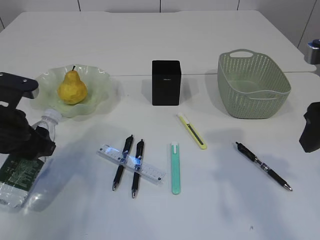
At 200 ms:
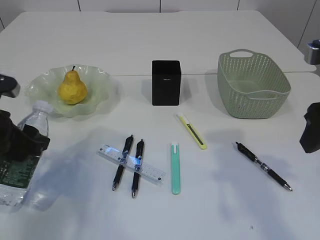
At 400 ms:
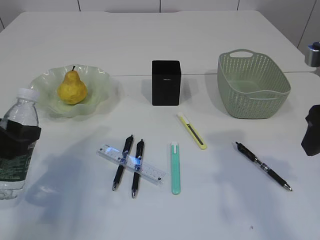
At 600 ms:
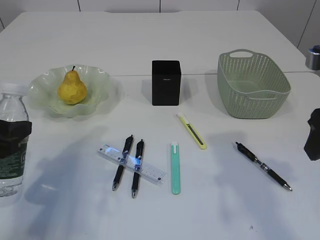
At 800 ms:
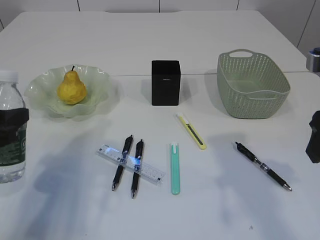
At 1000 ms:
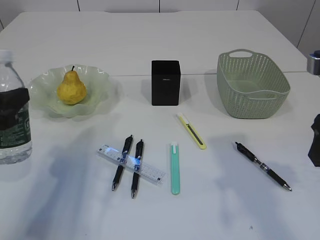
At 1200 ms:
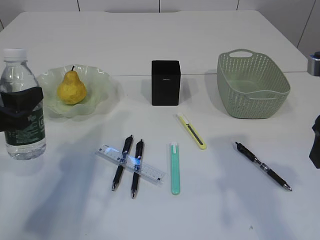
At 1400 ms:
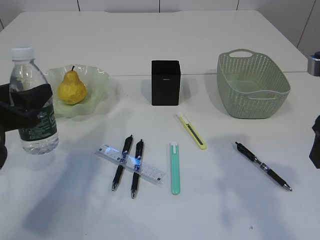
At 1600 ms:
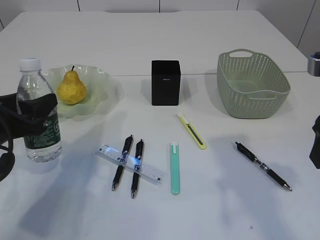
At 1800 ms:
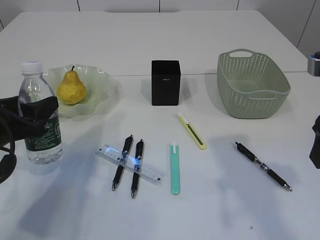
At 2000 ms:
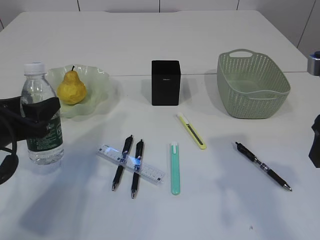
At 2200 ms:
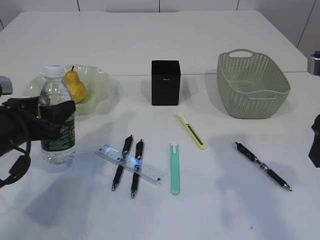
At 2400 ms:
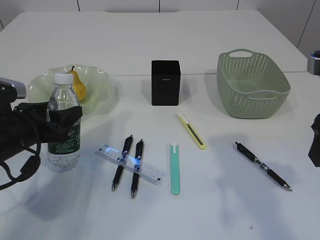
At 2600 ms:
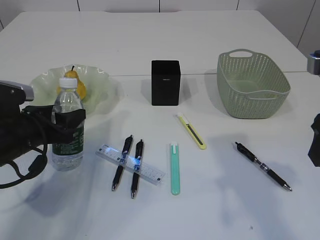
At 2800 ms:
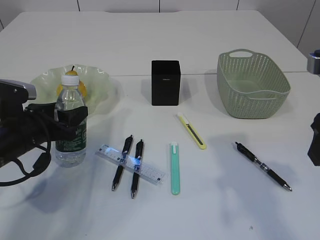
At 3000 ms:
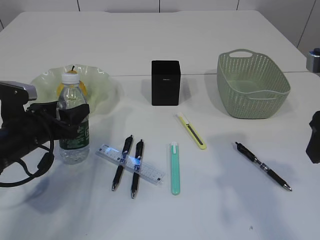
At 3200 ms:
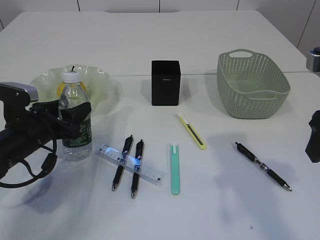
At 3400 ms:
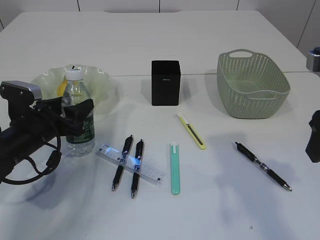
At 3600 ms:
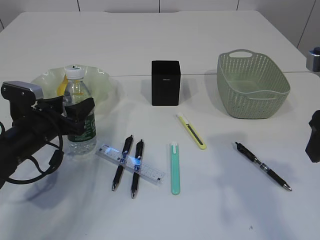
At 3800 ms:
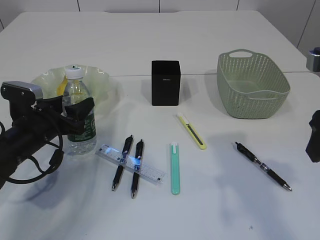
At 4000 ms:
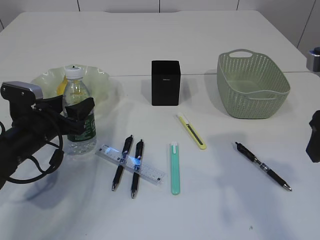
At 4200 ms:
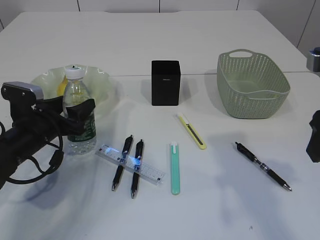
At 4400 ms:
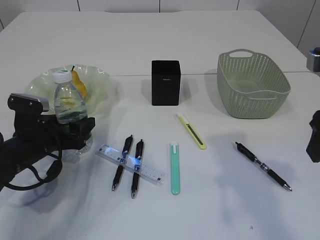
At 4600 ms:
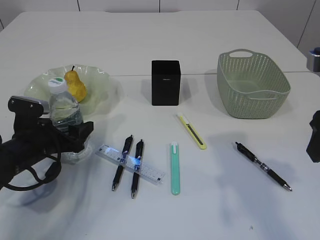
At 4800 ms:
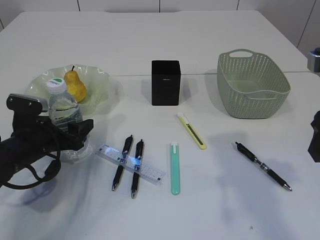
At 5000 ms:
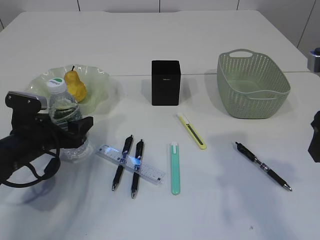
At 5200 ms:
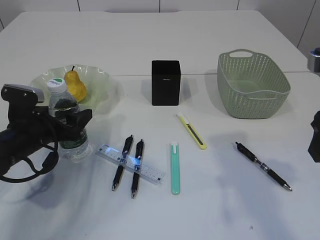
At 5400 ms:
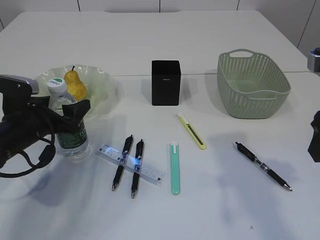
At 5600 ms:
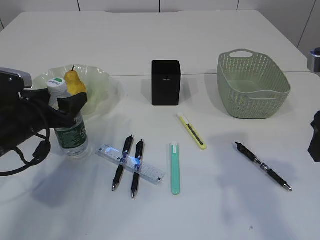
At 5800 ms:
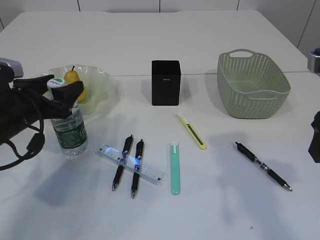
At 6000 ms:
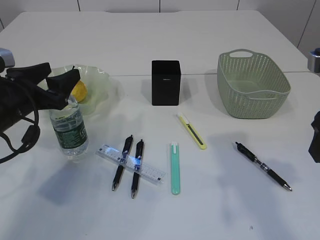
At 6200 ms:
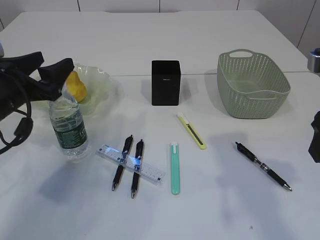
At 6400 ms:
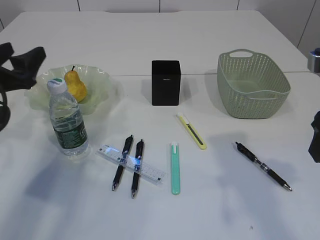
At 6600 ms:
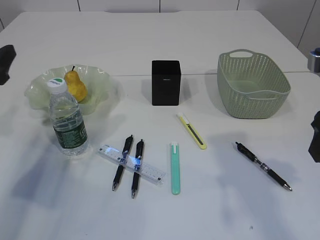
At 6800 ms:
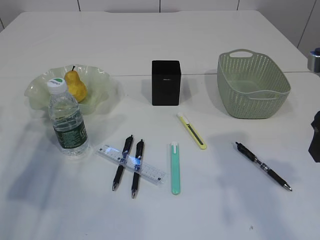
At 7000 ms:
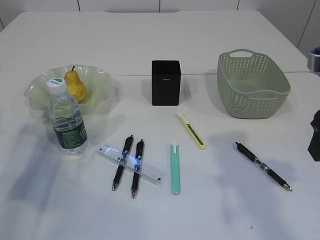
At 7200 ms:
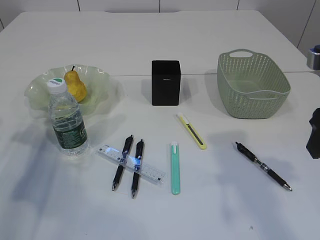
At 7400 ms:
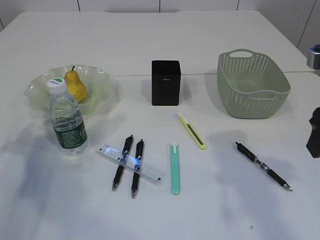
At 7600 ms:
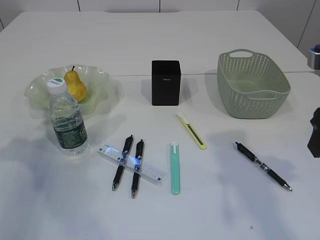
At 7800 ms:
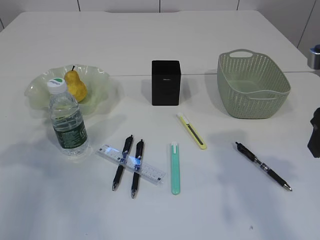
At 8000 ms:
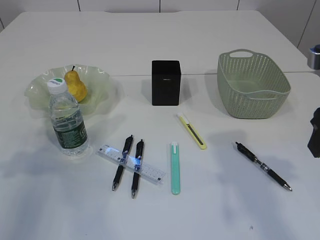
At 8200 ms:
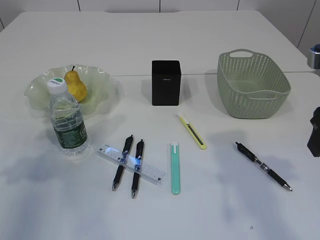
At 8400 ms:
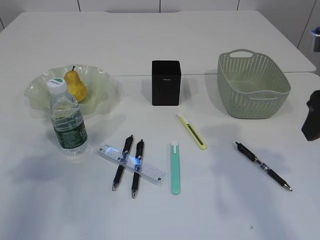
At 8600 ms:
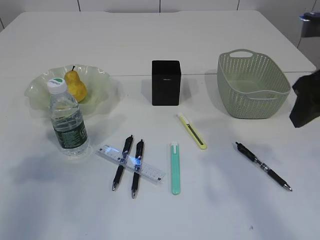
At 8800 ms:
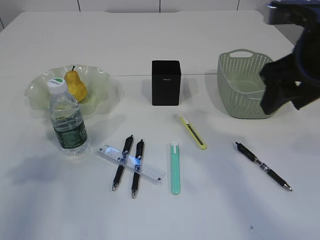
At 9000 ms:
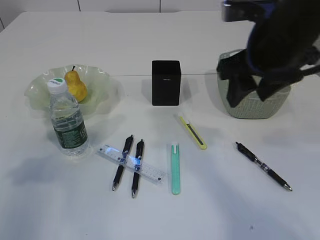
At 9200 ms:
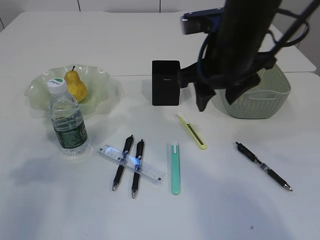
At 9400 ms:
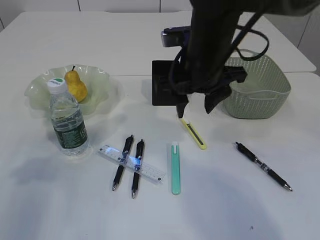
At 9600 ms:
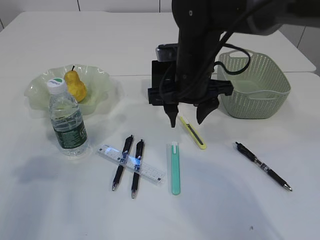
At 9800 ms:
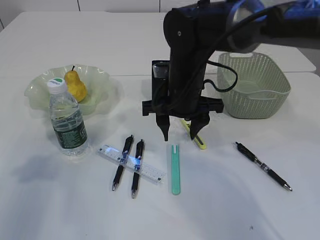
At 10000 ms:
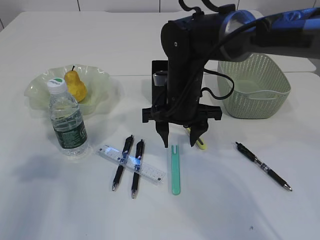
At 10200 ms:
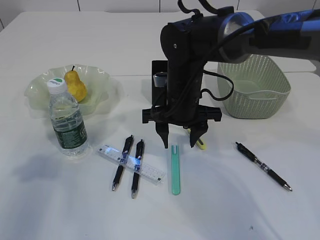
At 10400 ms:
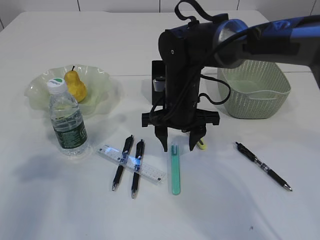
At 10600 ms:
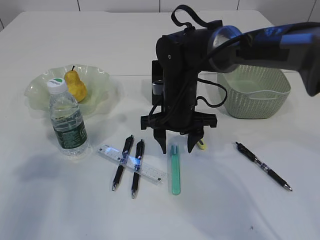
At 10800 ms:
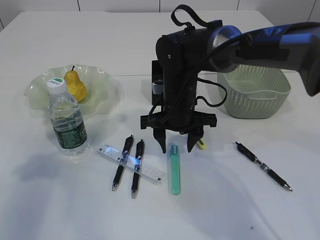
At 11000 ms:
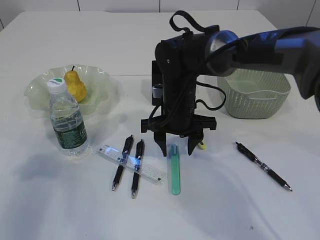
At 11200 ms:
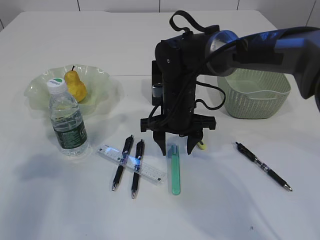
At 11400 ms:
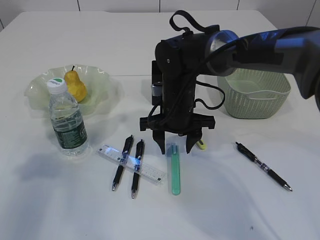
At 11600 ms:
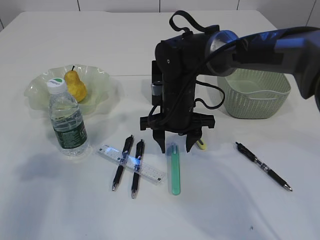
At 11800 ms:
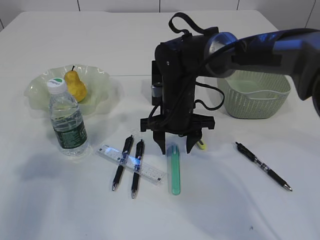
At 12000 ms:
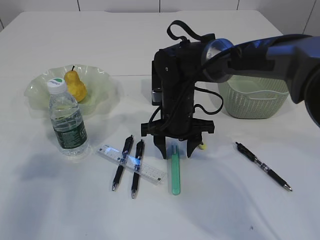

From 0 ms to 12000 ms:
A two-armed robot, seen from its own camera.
Step, from 600 ms to 6400 ms: Place the bottle.
From 1600 ms to 3000 ms: The left gripper moves downward and forward, approximately 10 cm.
From 3000 ms to 4400 ms: The left gripper opens its fingers.
From 4400 ms to 6000 ms: The left gripper heads upward, covering roughly 10 cm.
From 6000 ms to 7600 ms: The left gripper is displaced to the left by some 10 cm.
From 7600 ms to 9000 ms: The right gripper shifts roughly 10 cm to the left and forward.
From 9000 ms to 10400 ms: The right gripper is displaced downward, to the left and forward by roughly 20 cm.
From 10400 ms to 12000 ms: The grippers move only a little.

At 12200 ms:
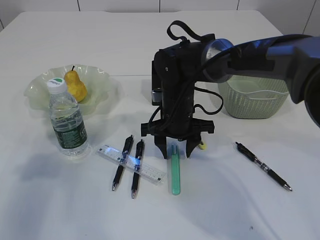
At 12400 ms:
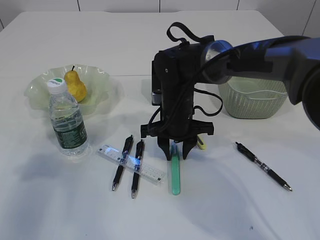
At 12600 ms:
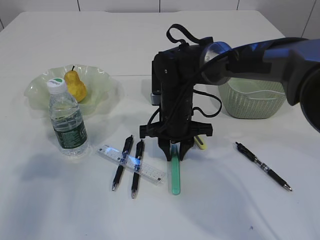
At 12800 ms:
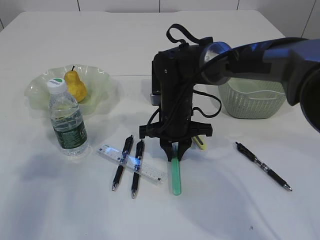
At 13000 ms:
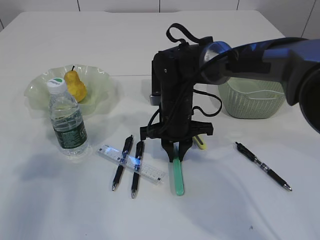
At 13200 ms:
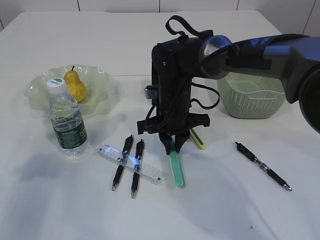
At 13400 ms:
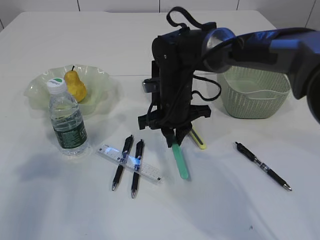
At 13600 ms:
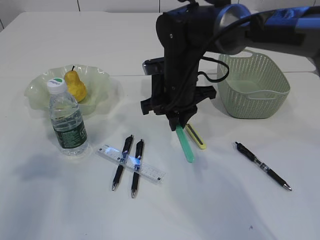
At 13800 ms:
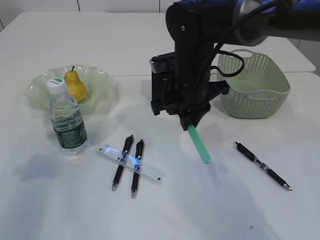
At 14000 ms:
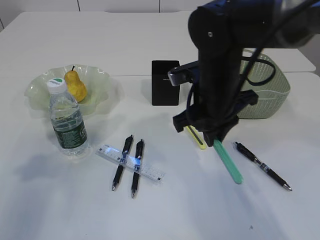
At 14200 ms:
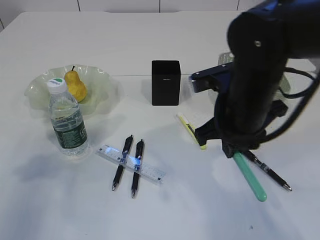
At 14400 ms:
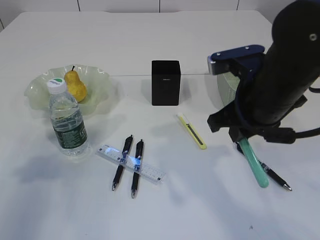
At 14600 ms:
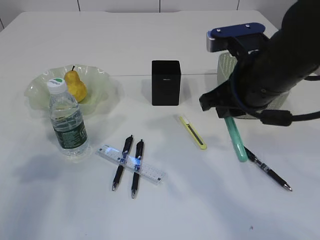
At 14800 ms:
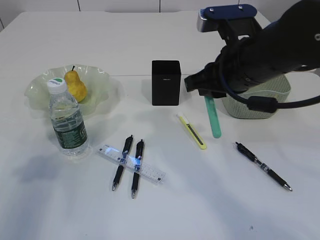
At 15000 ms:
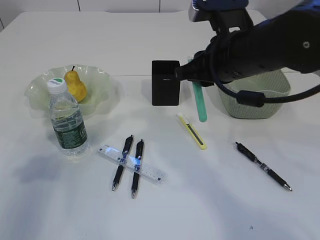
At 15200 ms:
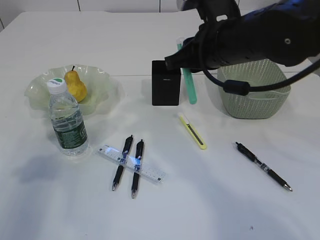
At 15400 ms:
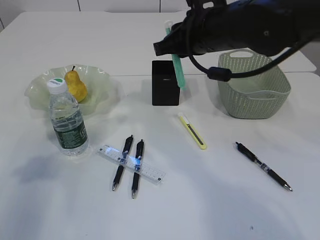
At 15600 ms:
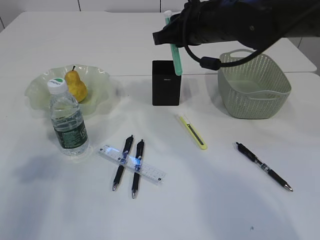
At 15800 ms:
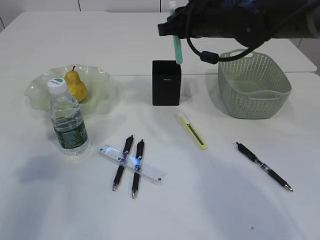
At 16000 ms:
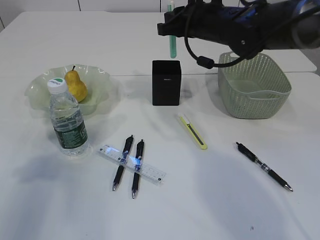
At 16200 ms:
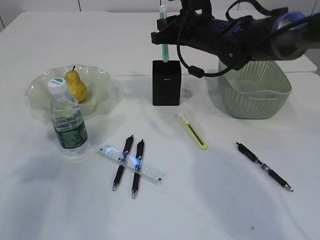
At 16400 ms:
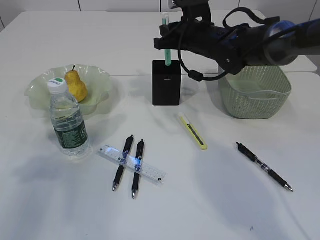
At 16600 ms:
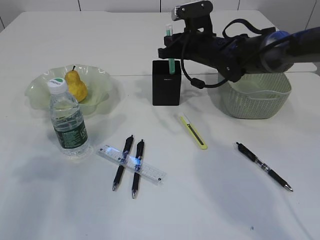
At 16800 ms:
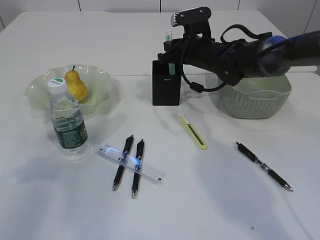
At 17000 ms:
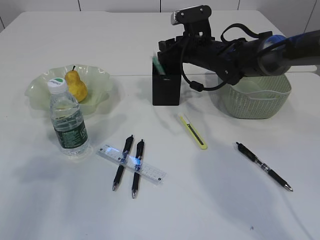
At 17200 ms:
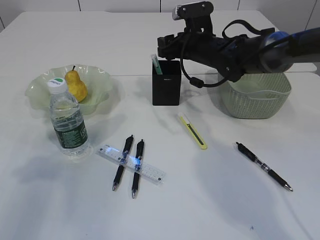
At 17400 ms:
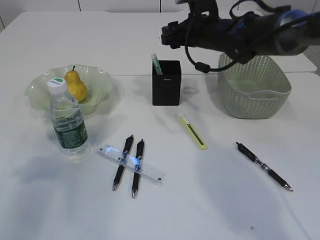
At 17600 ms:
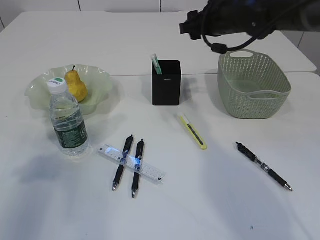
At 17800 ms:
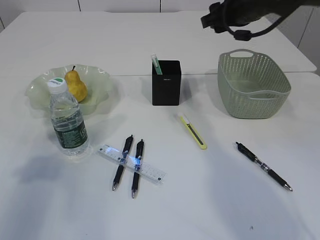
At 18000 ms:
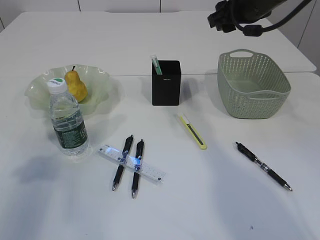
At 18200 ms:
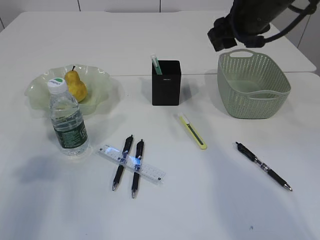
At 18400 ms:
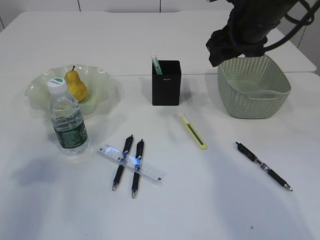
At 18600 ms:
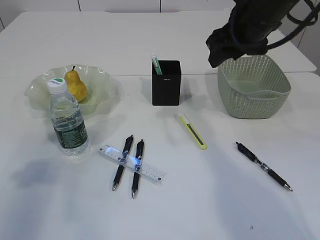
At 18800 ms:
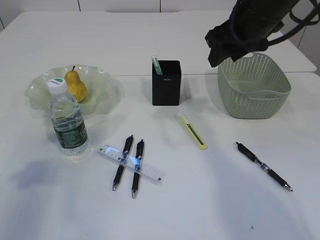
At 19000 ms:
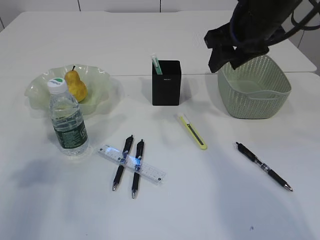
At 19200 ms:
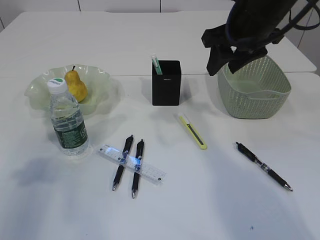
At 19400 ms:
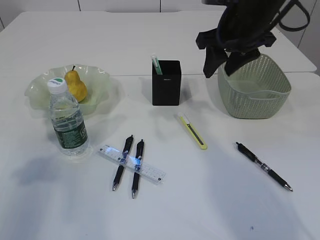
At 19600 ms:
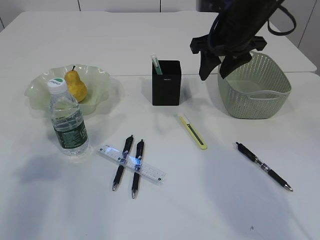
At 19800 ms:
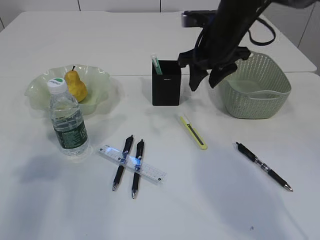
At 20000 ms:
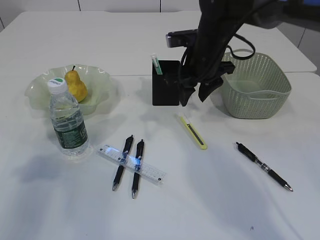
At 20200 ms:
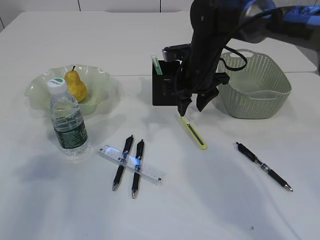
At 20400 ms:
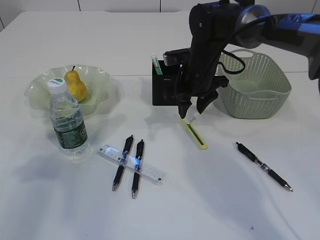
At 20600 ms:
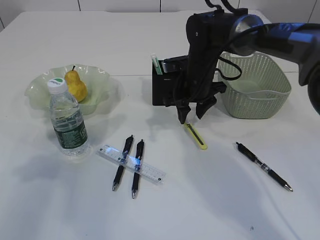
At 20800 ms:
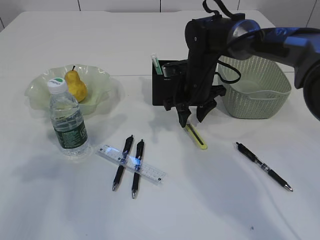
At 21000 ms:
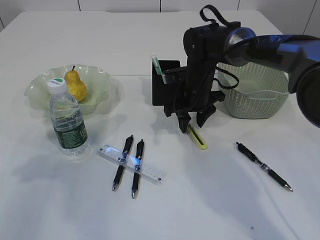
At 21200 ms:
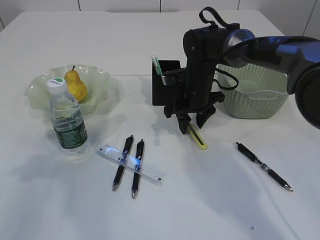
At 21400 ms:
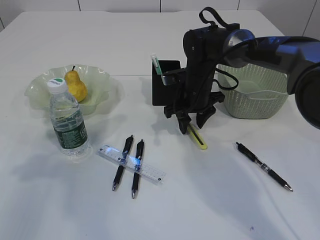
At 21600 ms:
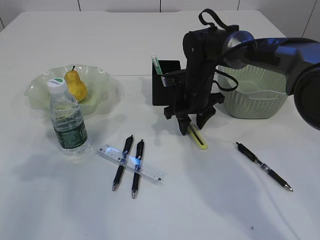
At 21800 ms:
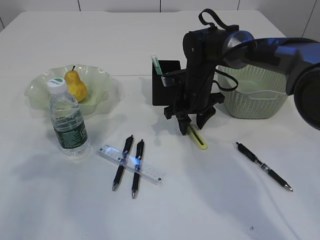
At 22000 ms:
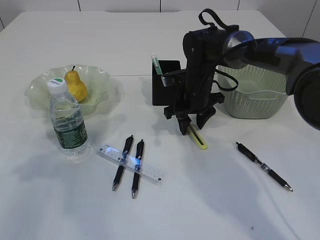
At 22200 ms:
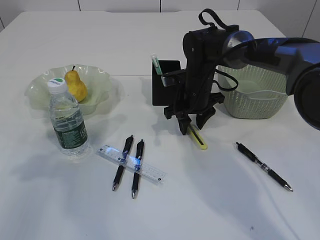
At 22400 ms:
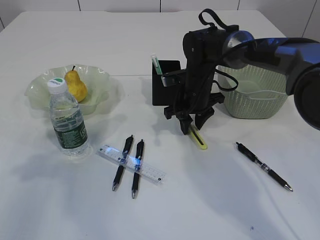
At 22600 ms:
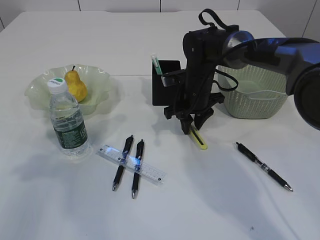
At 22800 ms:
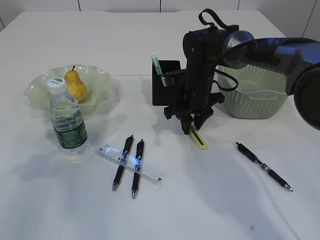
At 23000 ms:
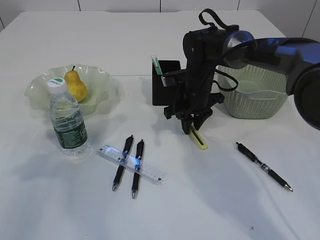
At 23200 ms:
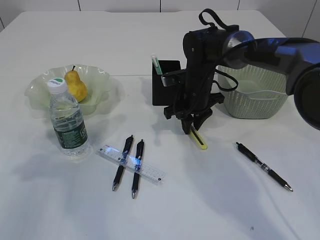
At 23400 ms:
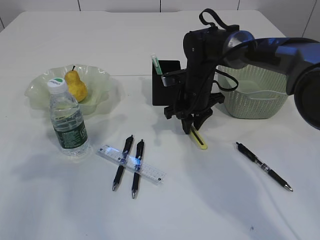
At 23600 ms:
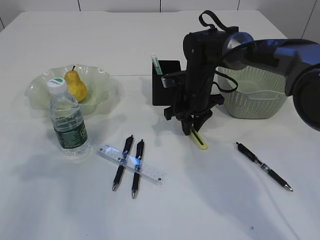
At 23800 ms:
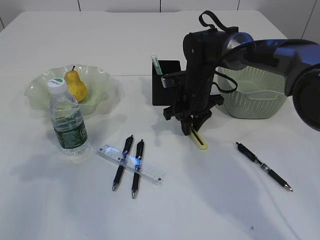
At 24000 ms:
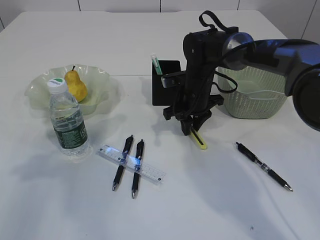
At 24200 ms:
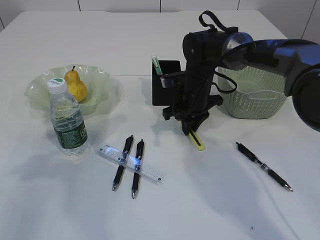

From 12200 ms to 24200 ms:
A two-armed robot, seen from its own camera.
Step, from 13600 ms to 17600 ms: Place the blue knife into the pen holder.
From 12200 ms to 13800 ms: The right gripper travels upward by about 10 cm, and closes its fingers.
From 13800 ms to 15200 ms: The right gripper shifts some 5 cm upward.
From 15200 ms to 16600 ms: The right gripper goes approximately 15 cm forward and downward.
From 16600 ms to 18200 ms: The right gripper travels upward, backward and to the right by roughly 15 cm, and opens its fingers.
From 18200 ms to 19800 ms: The right gripper moves approximately 5 cm.
From 19800 ms to 21200 ms: The right gripper heads downward, covering some 15 cm.
From 21200 ms to 24200 ms: Both grippers stay put.
